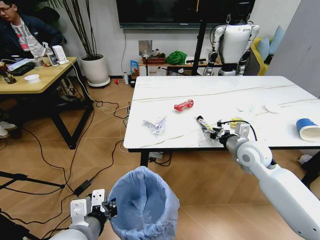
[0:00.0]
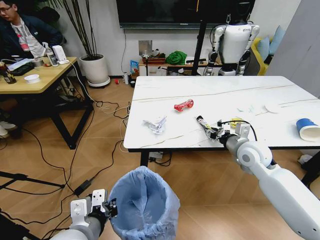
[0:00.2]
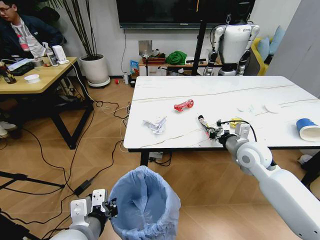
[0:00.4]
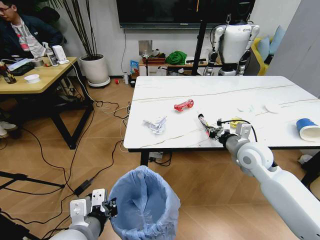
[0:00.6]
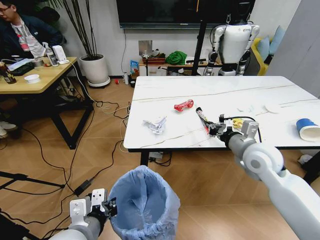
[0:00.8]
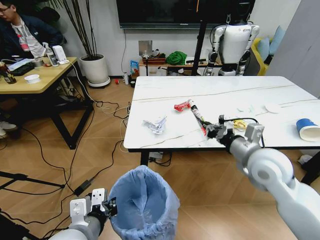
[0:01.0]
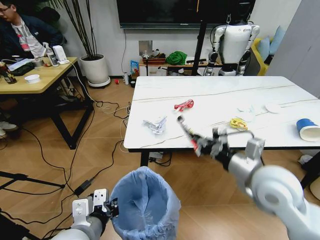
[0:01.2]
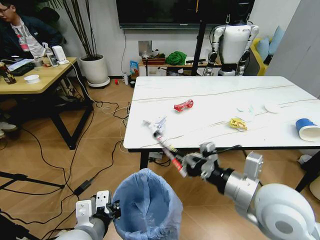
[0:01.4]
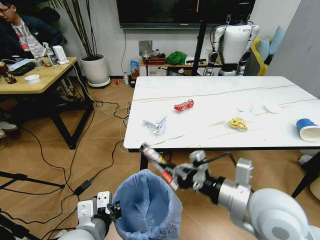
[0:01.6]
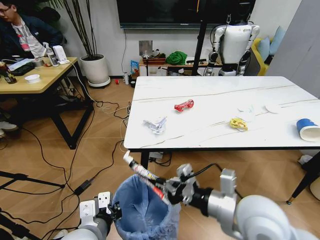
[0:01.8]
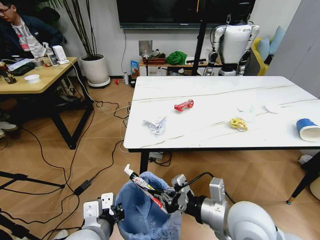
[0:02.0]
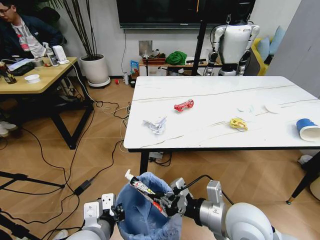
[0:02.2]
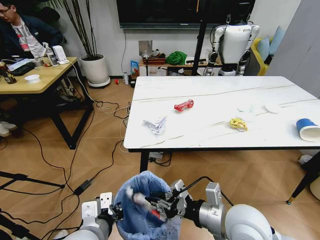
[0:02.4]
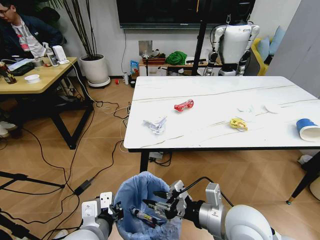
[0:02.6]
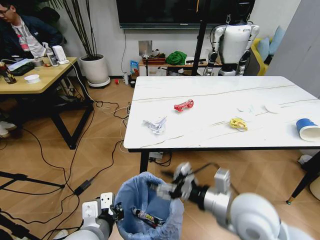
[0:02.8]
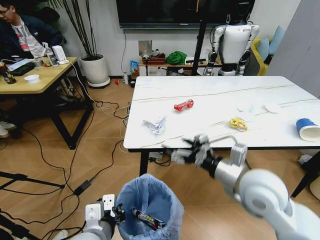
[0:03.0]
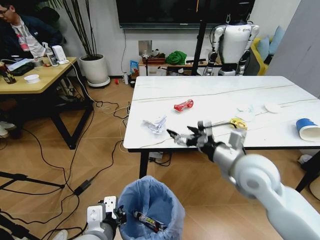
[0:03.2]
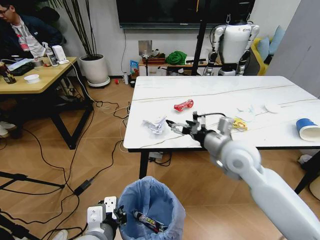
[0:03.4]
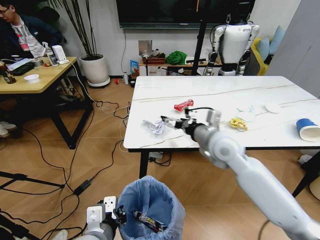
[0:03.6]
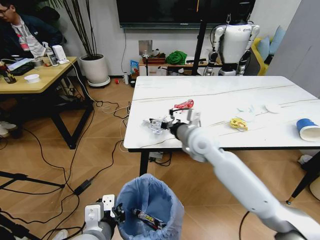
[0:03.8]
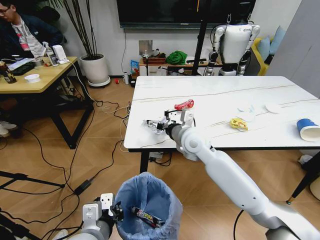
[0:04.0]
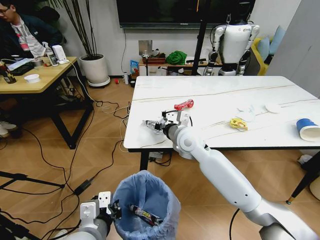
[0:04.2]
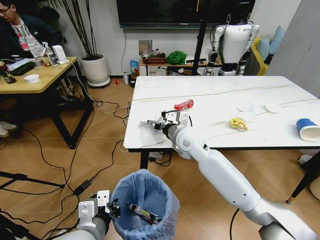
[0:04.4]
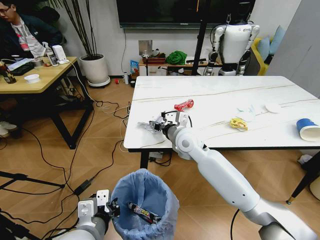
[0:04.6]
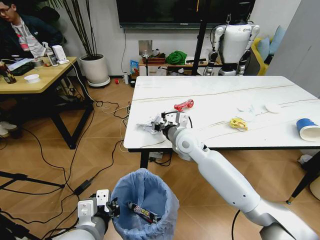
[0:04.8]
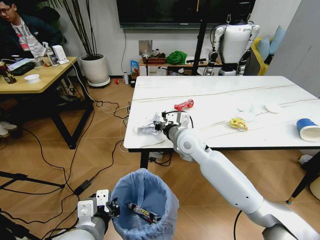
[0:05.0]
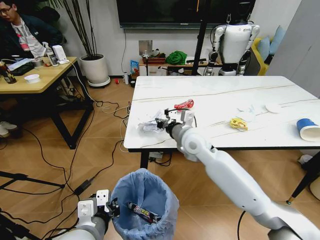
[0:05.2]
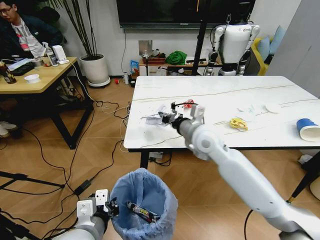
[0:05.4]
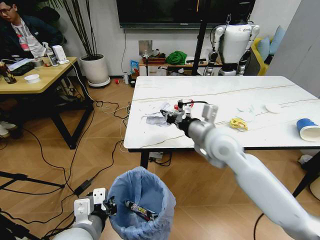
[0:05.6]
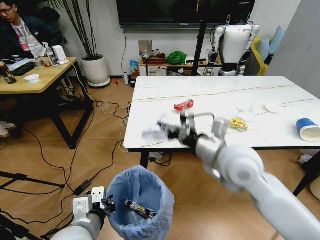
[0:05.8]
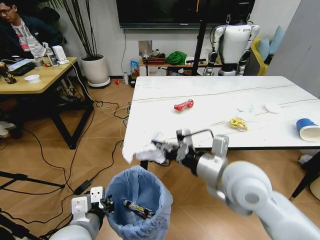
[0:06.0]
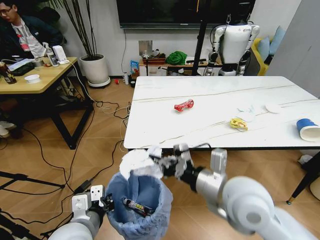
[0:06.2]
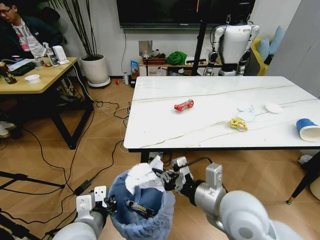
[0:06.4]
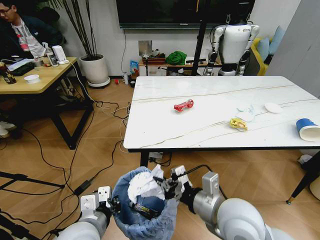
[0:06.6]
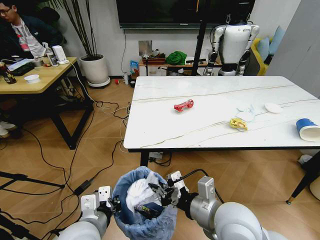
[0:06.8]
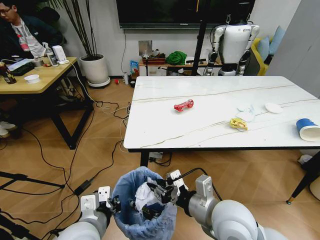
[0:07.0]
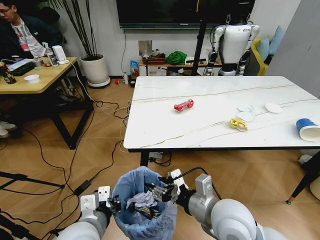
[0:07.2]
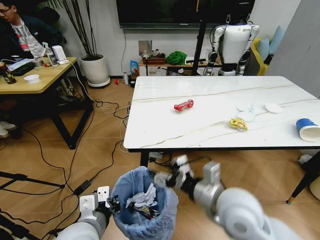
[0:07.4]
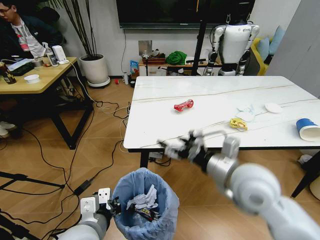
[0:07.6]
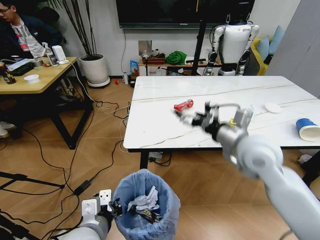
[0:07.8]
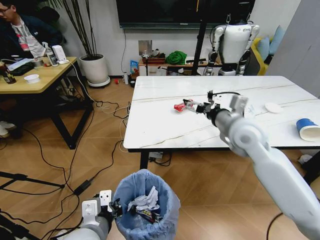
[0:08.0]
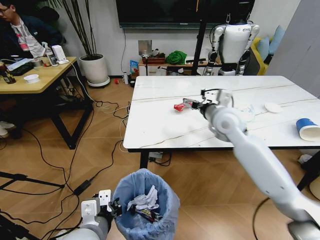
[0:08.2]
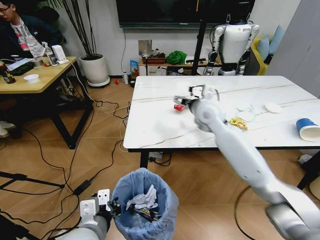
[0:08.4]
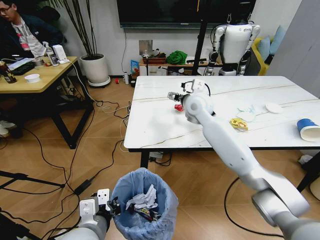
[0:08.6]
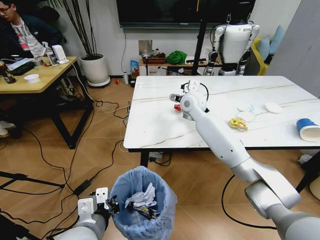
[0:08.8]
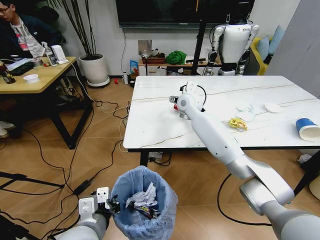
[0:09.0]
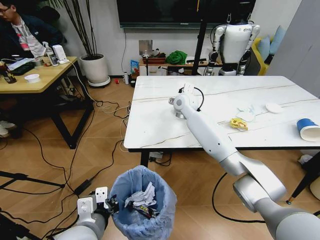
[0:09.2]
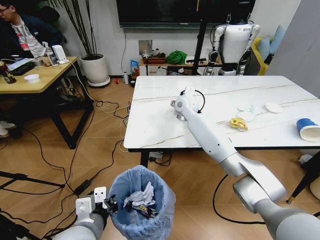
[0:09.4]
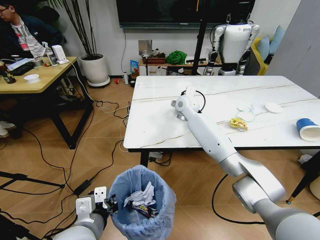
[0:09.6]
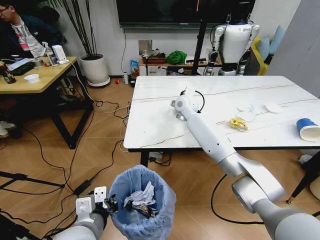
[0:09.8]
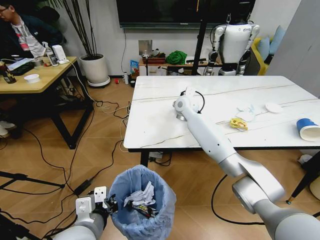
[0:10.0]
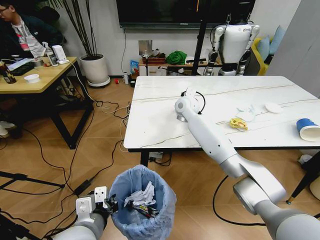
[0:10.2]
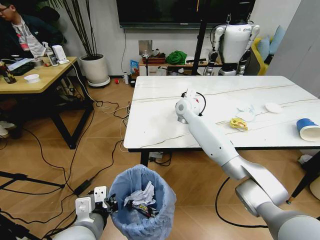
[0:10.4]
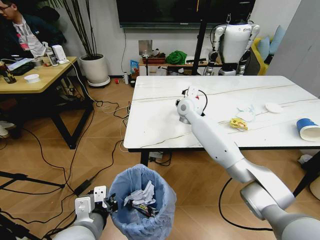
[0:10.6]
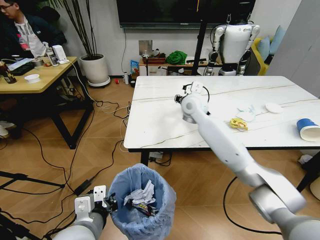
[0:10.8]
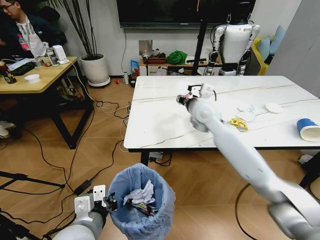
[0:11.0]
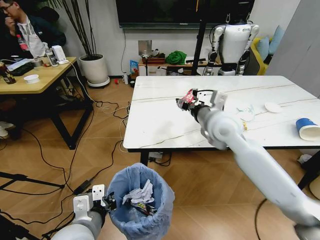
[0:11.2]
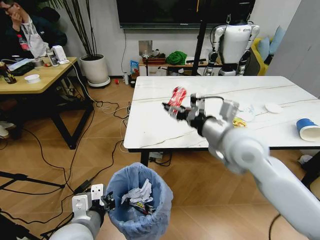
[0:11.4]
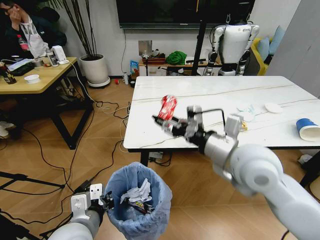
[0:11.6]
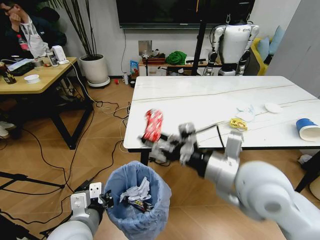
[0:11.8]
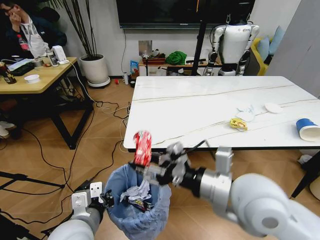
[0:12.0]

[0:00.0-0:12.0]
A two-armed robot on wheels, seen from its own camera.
Task of the whole recording: Pick up the trash bin and place the trash from the table into it.
0:00.0 to 0:01.6: The right gripper shifts about 20 cm backward and to the left, and closes its fingers.
0:01.6 to 0:03.0: The right gripper opens up.
0:03.0 to 0:04.4: The right gripper heads forward and to the left, covering about 25 cm.
0:04.4 to 0:06.0: The right gripper heads backward, to the right and upward, covering roughly 20 cm, and closes up.
0:06.0 to 0:07.6: The right gripper travels backward and back again, roughly 10 cm each way, and opens.
0:07.6 to 0:09.0: The right gripper heads forward, covering some 30 cm.
0:09.0 to 0:10.4: The right gripper closes its fingers.
0:10.4 to 0:12.0: The right gripper heads backward, covering about 40 cm.

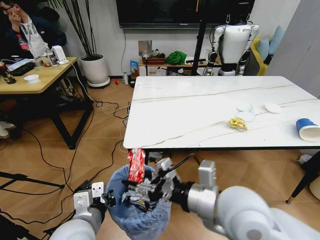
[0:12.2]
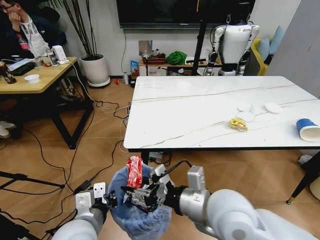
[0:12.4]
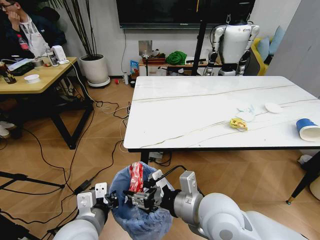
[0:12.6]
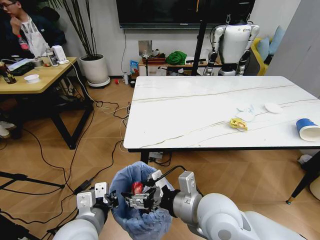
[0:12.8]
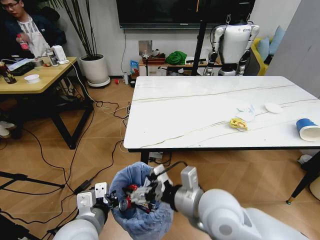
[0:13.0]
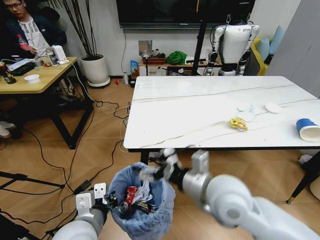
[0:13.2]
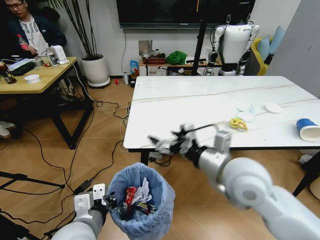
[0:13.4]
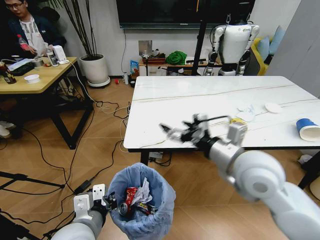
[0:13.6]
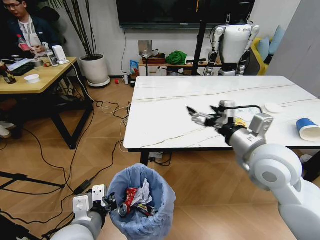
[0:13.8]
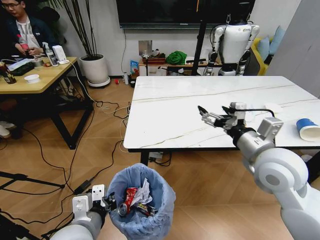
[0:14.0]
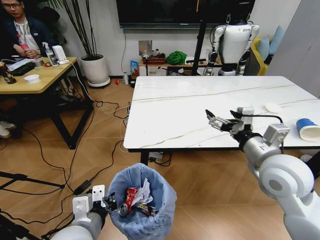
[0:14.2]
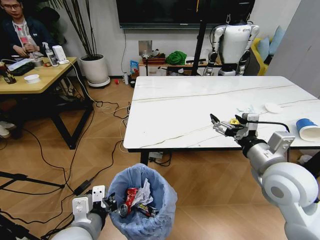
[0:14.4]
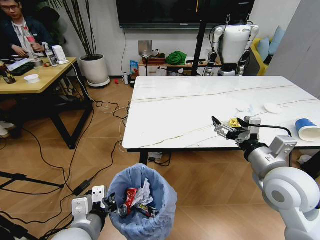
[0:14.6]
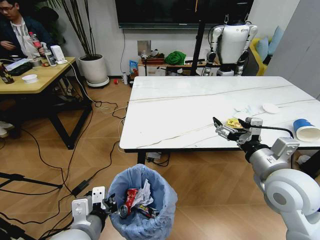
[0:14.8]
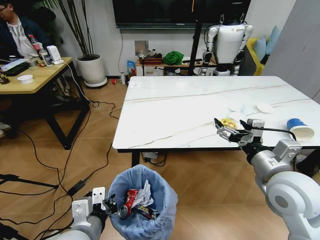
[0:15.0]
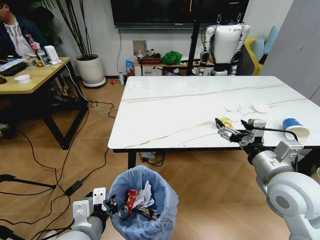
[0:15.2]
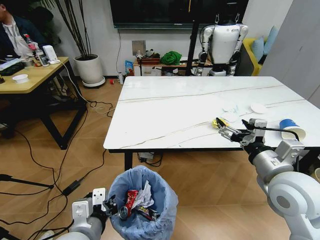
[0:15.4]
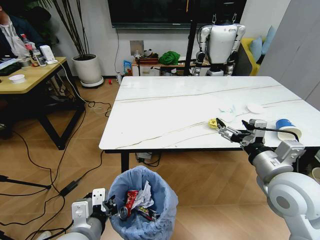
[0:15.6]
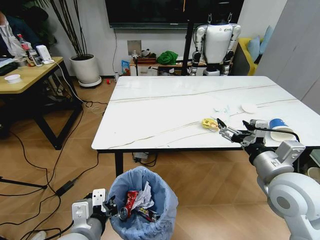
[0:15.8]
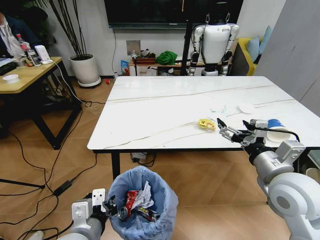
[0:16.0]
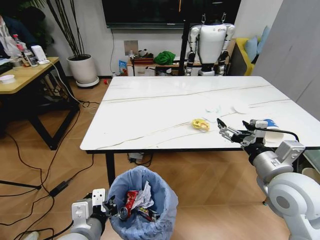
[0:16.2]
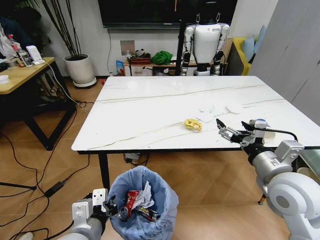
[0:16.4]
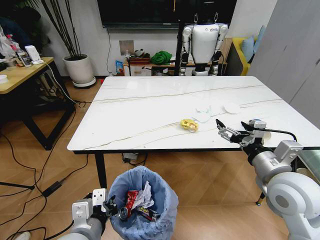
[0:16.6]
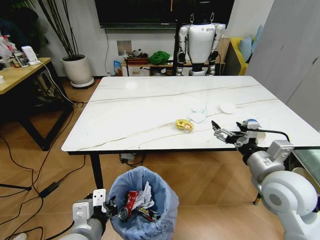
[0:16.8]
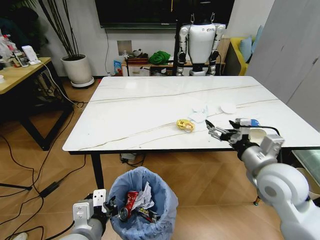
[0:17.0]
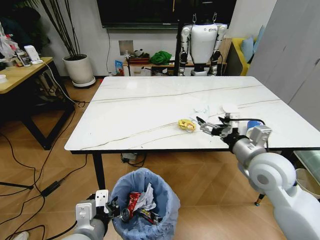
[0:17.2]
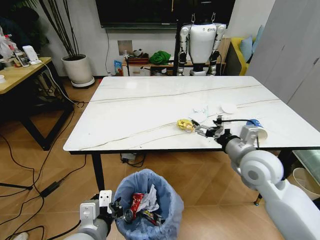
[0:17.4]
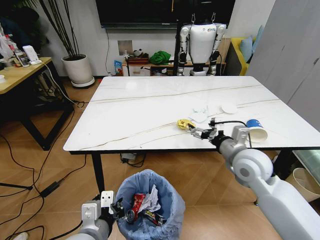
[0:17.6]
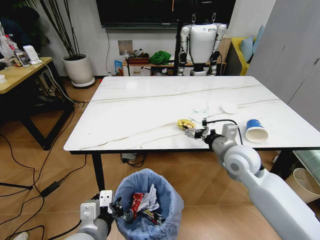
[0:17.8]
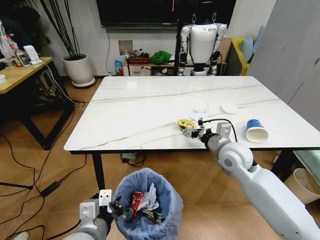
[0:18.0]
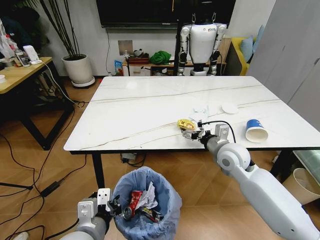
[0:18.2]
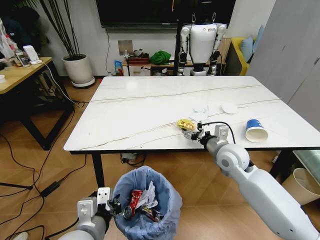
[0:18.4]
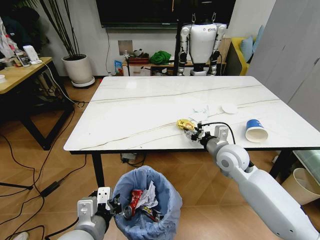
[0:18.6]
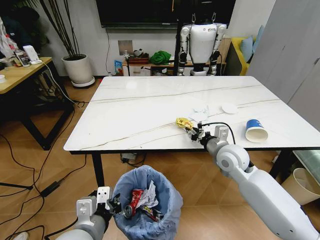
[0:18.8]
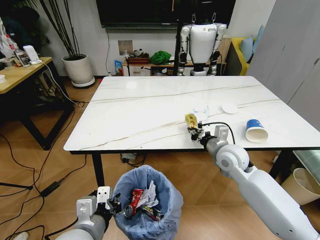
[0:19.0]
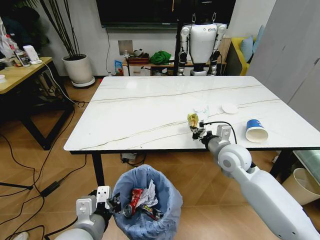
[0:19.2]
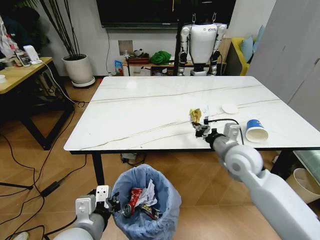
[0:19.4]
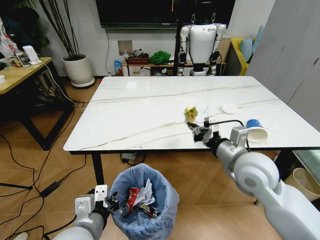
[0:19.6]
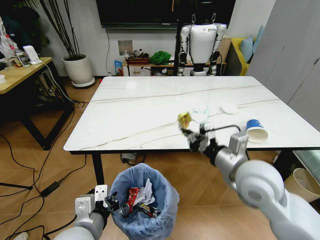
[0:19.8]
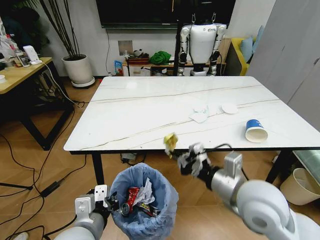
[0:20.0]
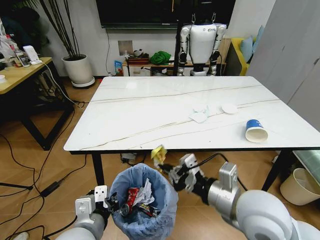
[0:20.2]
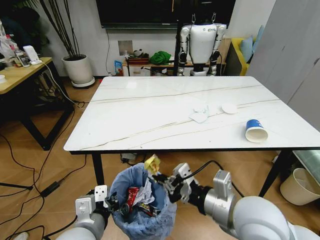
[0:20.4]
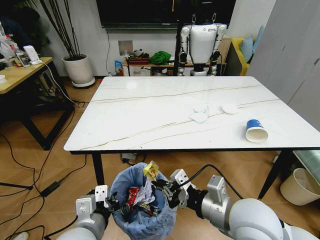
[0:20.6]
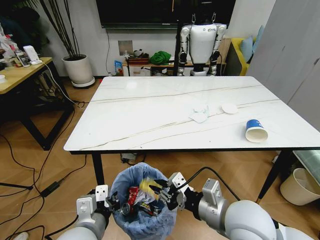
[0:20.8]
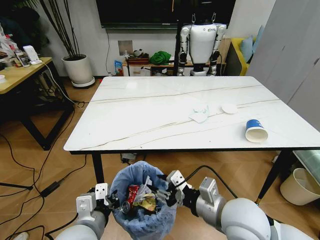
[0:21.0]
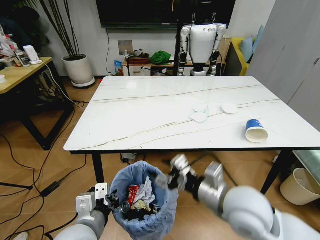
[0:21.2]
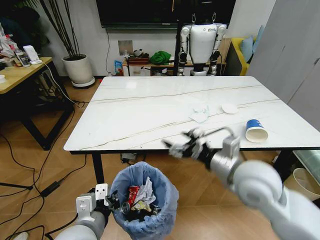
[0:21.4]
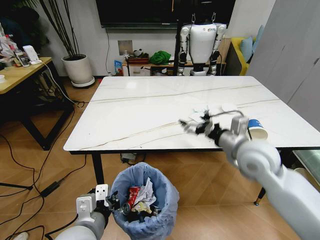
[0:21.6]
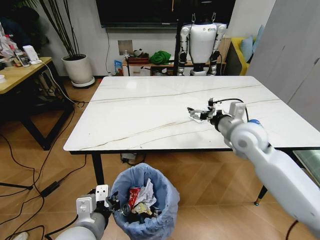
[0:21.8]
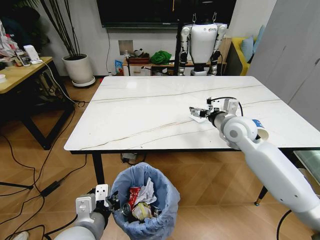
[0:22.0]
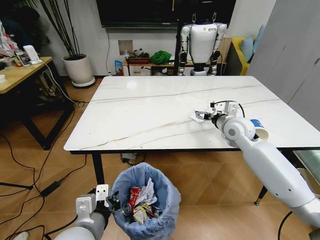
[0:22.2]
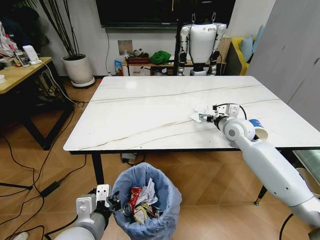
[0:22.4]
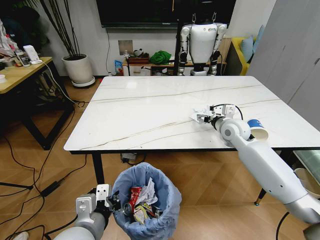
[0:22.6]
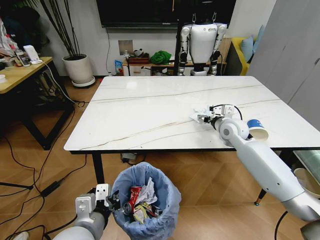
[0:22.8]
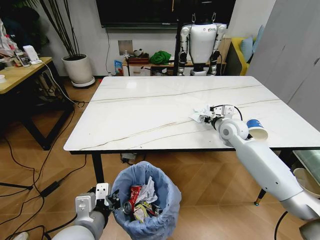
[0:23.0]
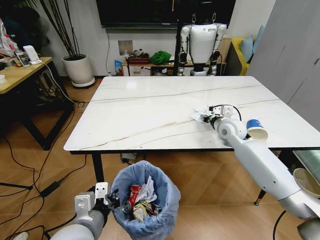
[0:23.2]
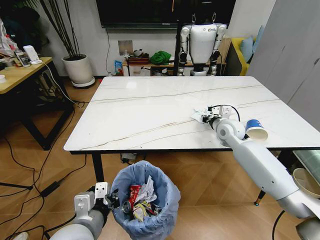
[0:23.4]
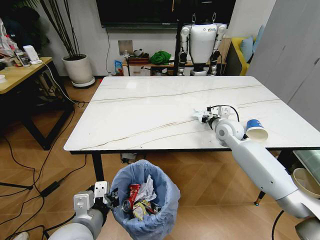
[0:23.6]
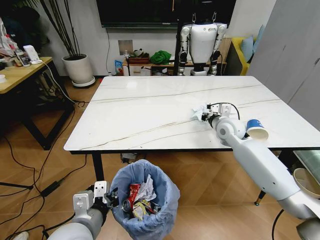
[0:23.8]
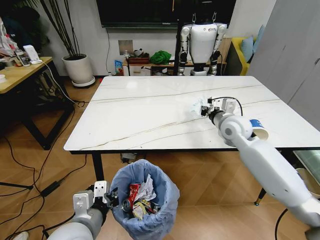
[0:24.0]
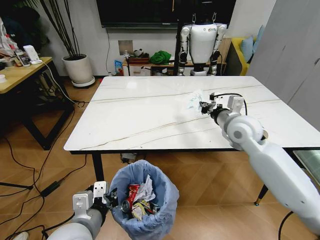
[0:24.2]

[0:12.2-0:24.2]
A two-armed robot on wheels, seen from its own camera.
Task of the whole recording: Pick up the trash bin and place the trash from the table into it.
0:12.2 to 0:13.8: The right gripper travels to the right and forward by approximately 15 cm, and opens up.
0:13.8 to 0:15.2: The right gripper shifts about 5 cm backward.
0:16.6 to 0:18.2: The right gripper is displaced forward and downward by roughly 15 cm.
0:18.2 to 0:19.8: The right gripper heads backward and upward, covering roughly 15 cm, and closes its fingers.
0:19.8 to 0:21.2: The right gripper shifts by roughly 5 cm, and opens.
0:21.2 to 0:22.6: The right gripper goes about 25 cm forward.
0:22.6 to 0:24.2: The right gripper moves roughly 5 cm, and closes.
